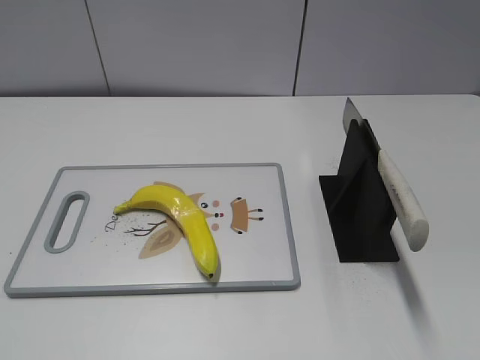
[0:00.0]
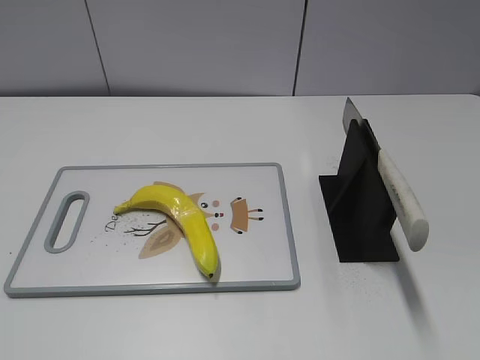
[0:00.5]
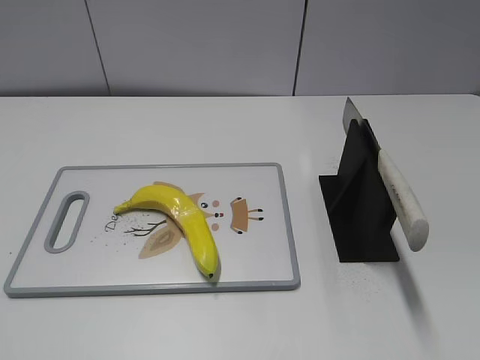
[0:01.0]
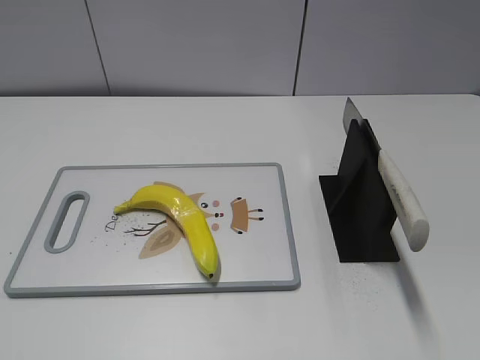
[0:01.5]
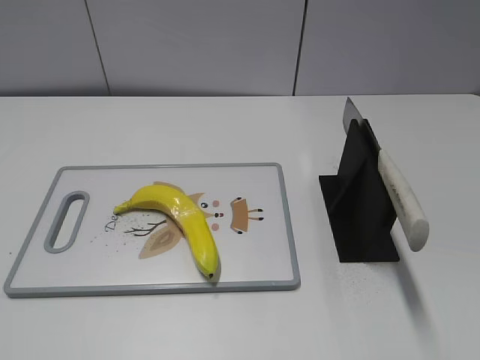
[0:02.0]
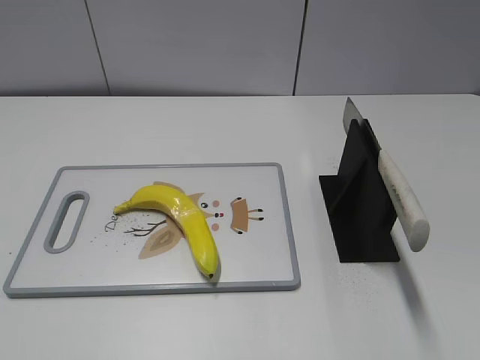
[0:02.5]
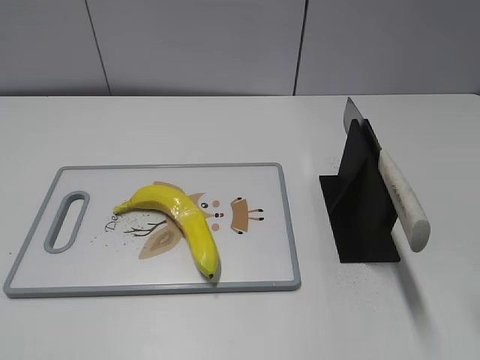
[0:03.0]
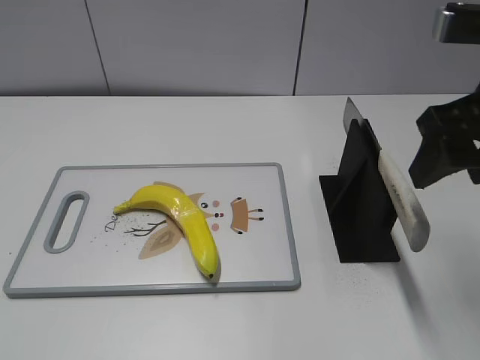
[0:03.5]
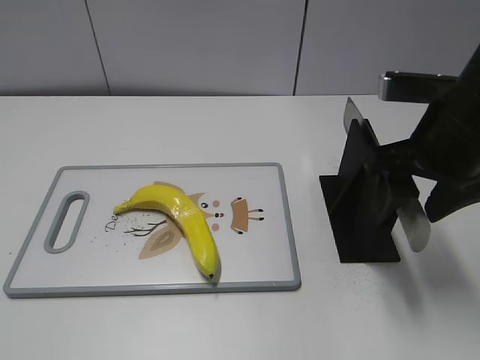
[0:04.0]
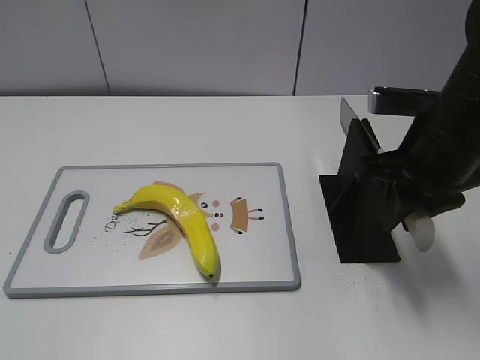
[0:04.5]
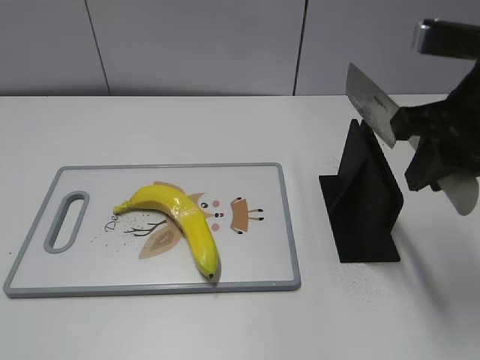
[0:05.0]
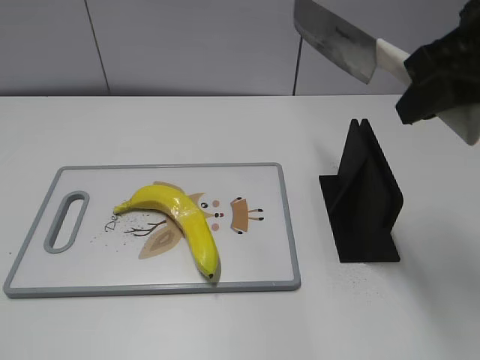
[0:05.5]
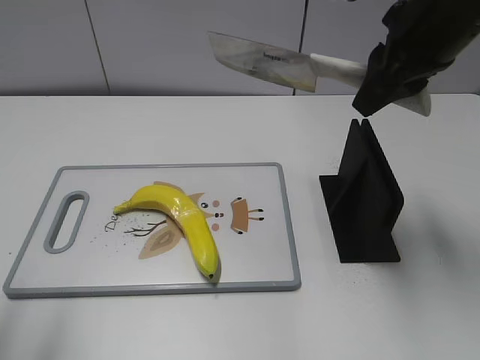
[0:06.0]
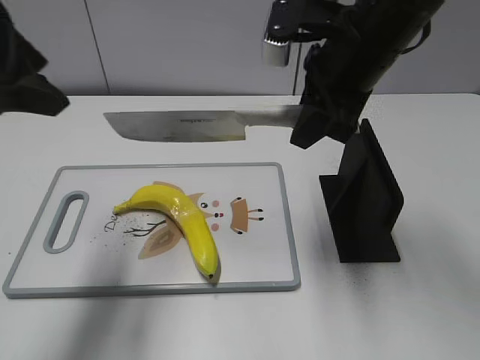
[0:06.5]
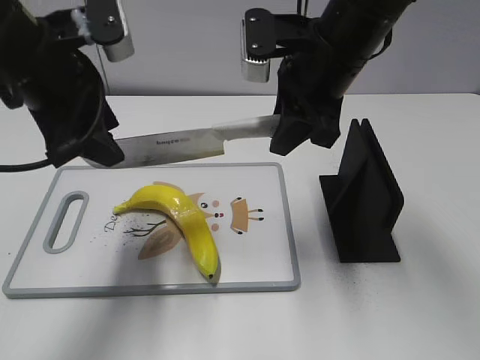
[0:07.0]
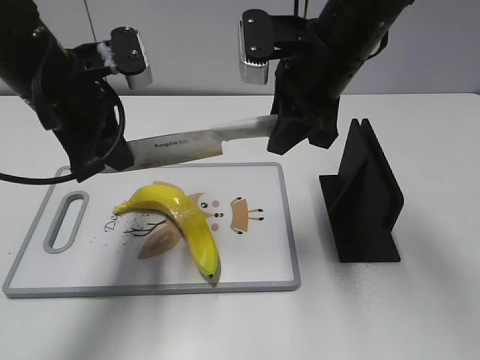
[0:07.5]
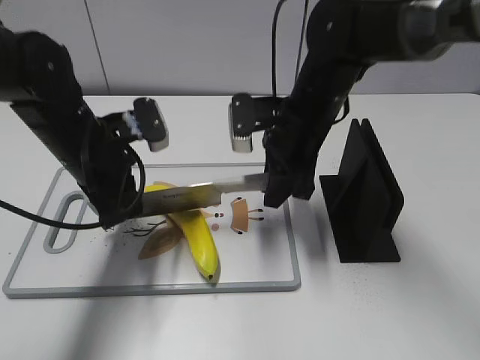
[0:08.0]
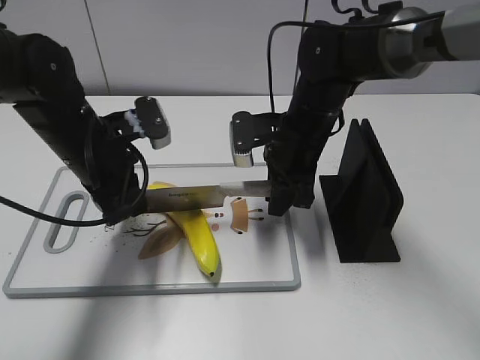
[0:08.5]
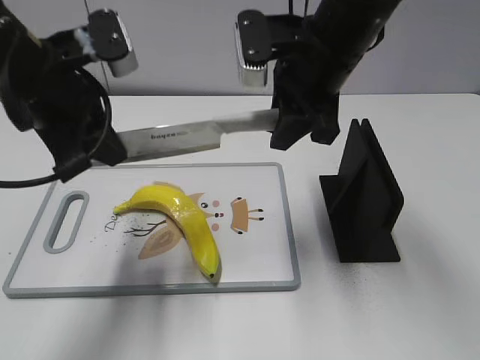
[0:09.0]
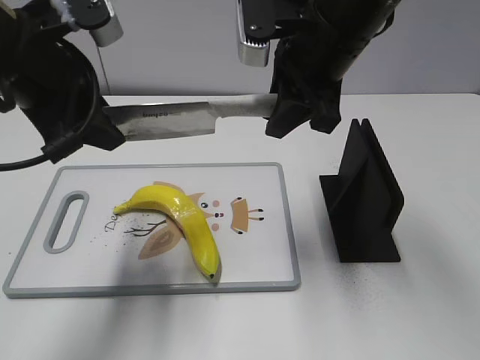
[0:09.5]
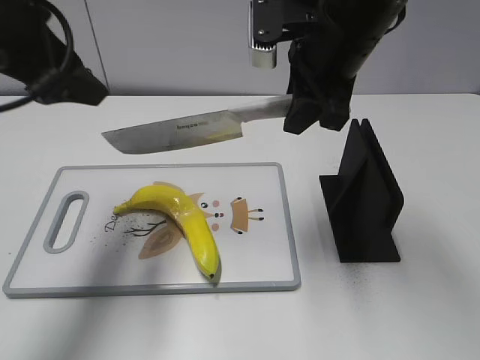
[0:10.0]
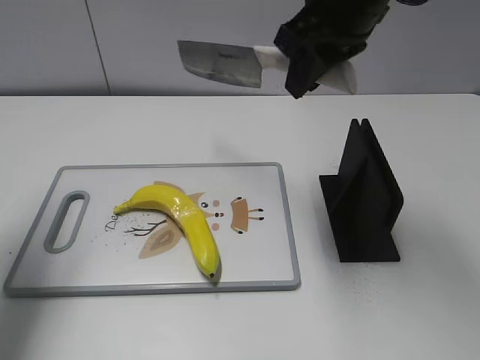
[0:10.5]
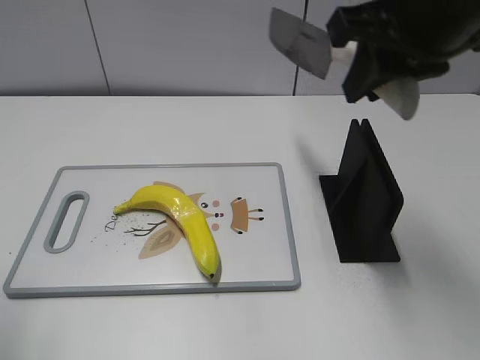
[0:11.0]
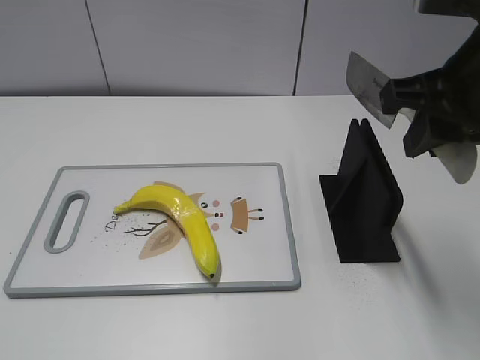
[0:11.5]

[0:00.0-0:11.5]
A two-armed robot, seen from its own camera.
Task of the whole recording: cut plastic banana.
Step, 0:00.0 to 0:05.0: Grab the knife handle with your right hand.
Step, 0:05.5 to 0:09.0: Lift the knife with your right hand.
Step, 0:09.5 to 0:10.0: Cut the banana with your right hand.
Step, 0:11.0 to 0:11.5: Secure the blade with your left hand.
0:02.0 to 0:04.0: The right gripper shifts roughly 25 cm forward and to the left.
0:04.0 to 0:06.0: The right gripper travels upward and forward by roughly 10 cm, and closes. The left gripper is displaced forward and upward by about 15 cm.
0:06.0 to 0:07.5: The left gripper shifts roughly 25 cm forward, to the right and downward, and closes. The right gripper goes roughly 10 cm to the left and downward.
0:07.5 to 0:09.5: The right gripper goes downward and returns, some 10 cm each way. The left gripper travels downward and back again, some 10 cm each way, and opens up.
0:09.5 to 0:11.5: The left gripper heads backward and to the left, covering approximately 30 cm, and opens, while the right gripper is displaced backward and to the right by approximately 15 cm.

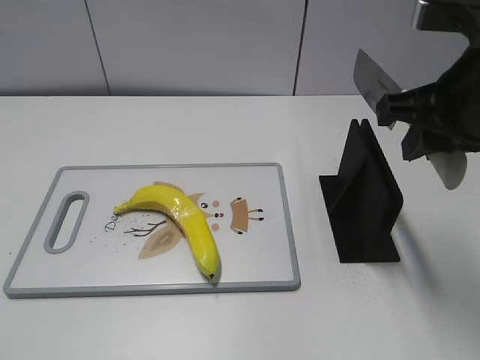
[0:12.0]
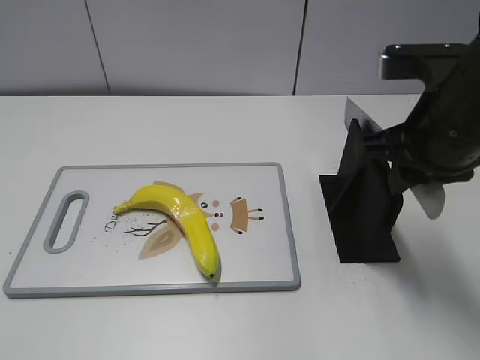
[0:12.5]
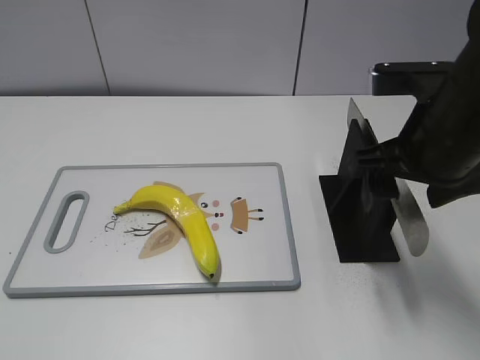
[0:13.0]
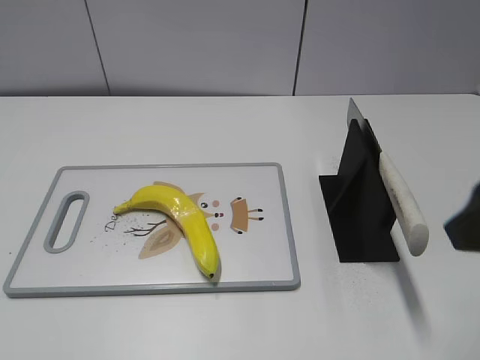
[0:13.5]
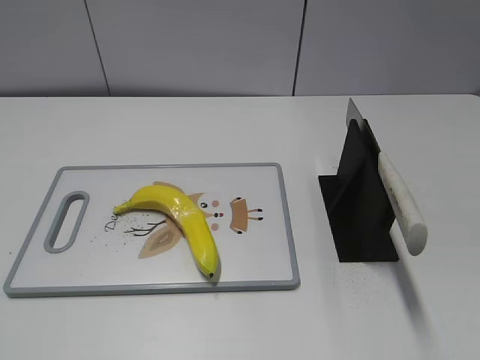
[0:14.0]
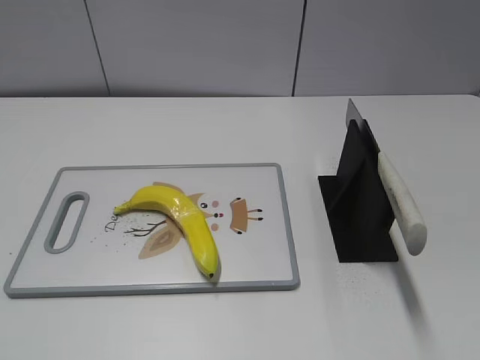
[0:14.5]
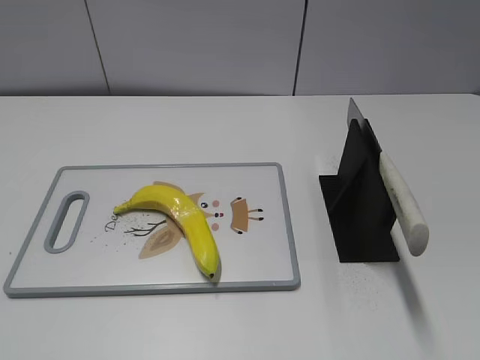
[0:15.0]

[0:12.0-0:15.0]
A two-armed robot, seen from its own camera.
Task of the whole recording: cut plastic banana.
Step, 0:12.0 to 0:15.0: Place the knife on the storage rack with your right hand.
0:12.0 to 0:13.5: The right gripper shifts some 10 cm backward, and opens.
0:13.5 to 0:15.0: The right gripper shifts approximately 20 cm backward and to the right.

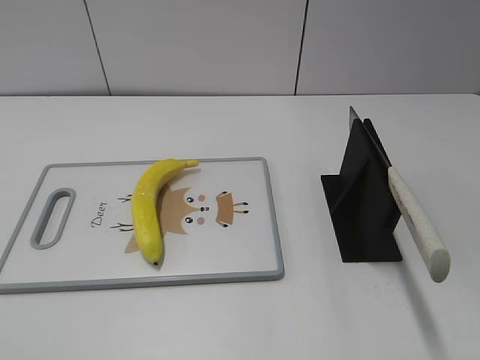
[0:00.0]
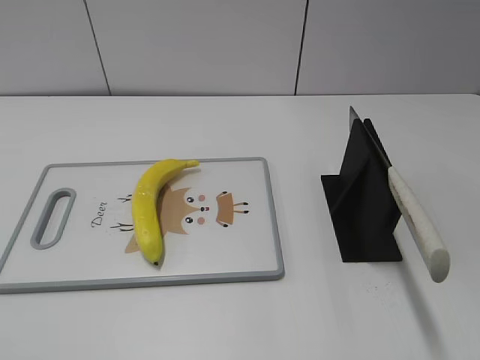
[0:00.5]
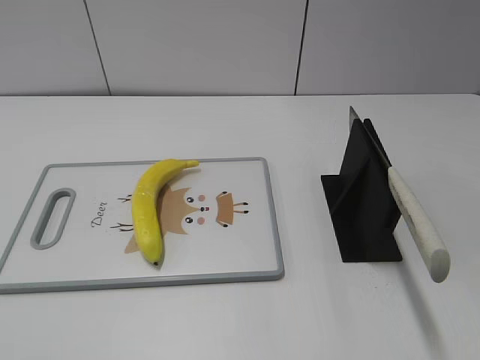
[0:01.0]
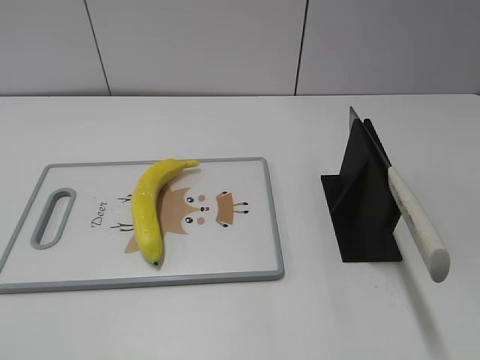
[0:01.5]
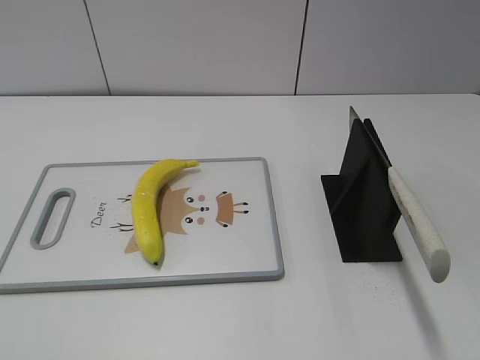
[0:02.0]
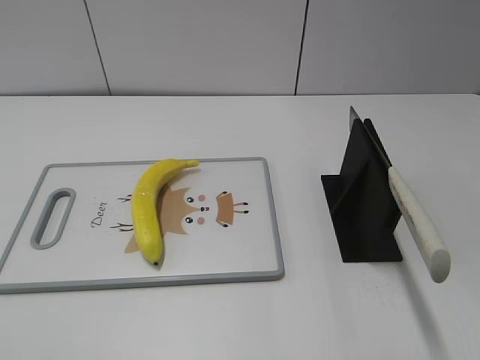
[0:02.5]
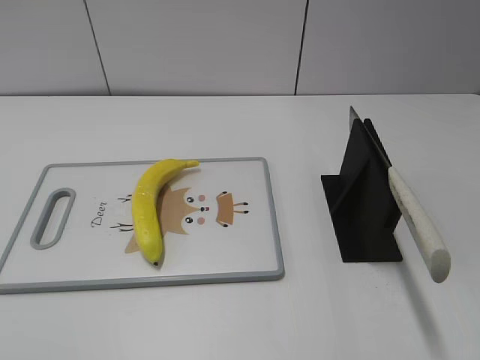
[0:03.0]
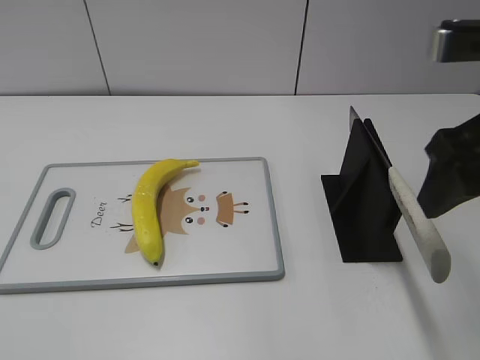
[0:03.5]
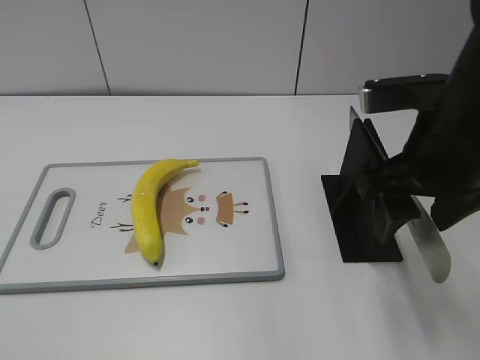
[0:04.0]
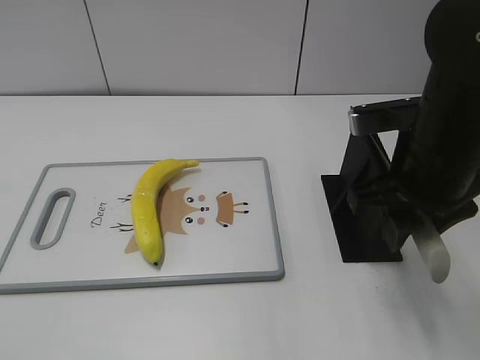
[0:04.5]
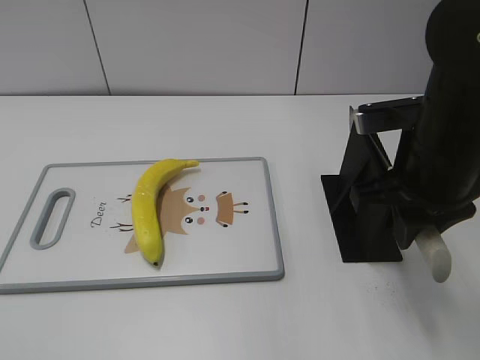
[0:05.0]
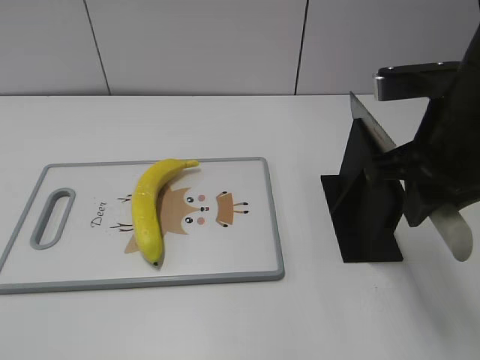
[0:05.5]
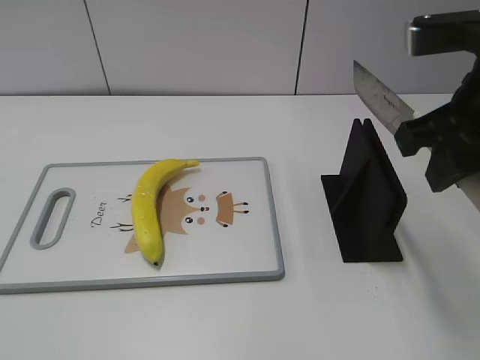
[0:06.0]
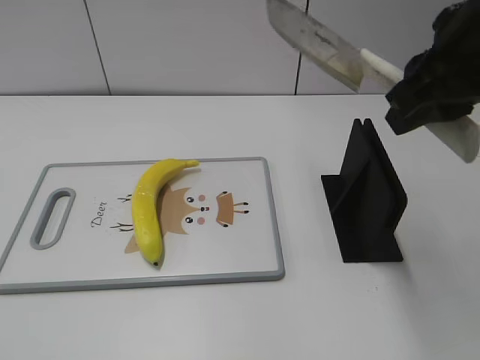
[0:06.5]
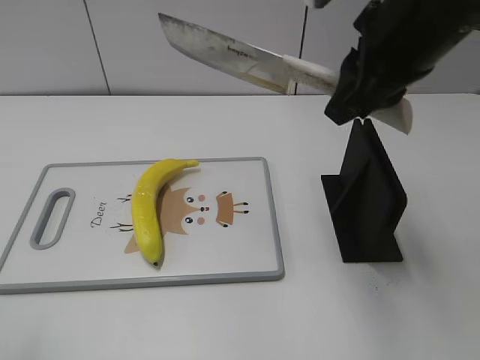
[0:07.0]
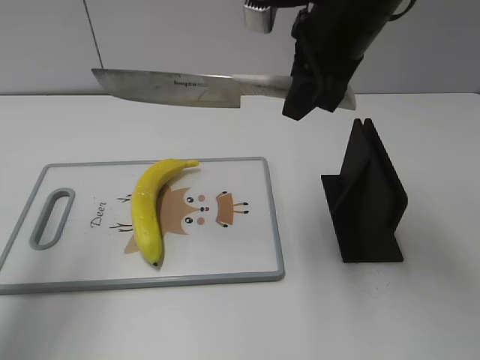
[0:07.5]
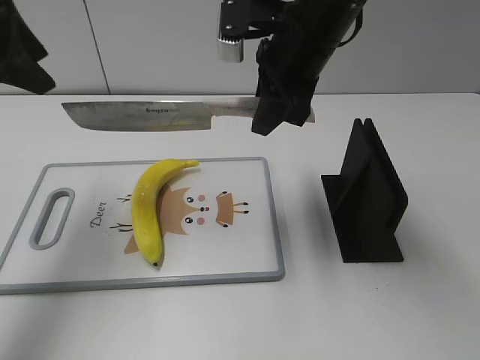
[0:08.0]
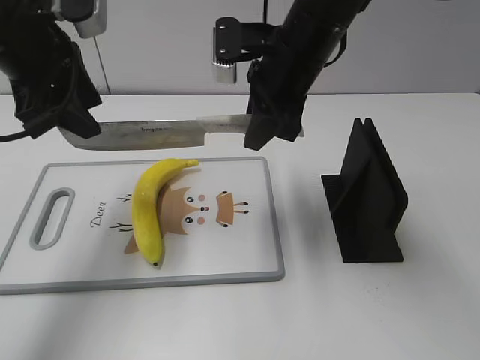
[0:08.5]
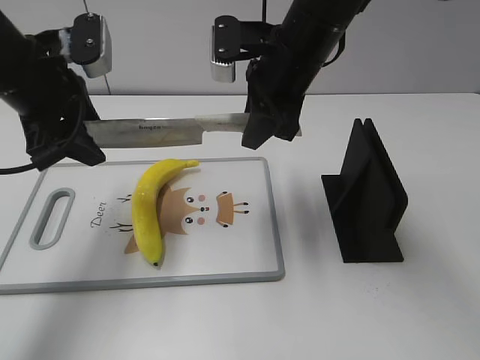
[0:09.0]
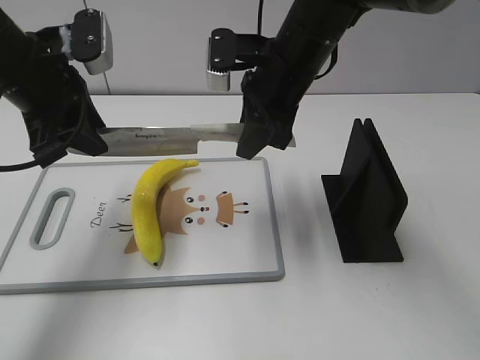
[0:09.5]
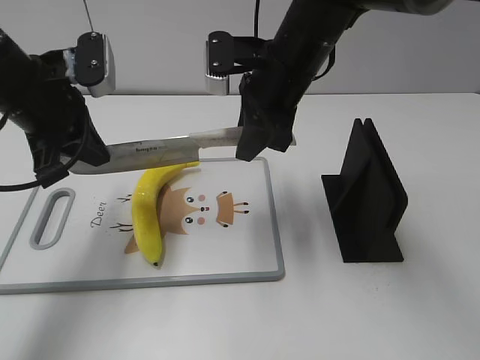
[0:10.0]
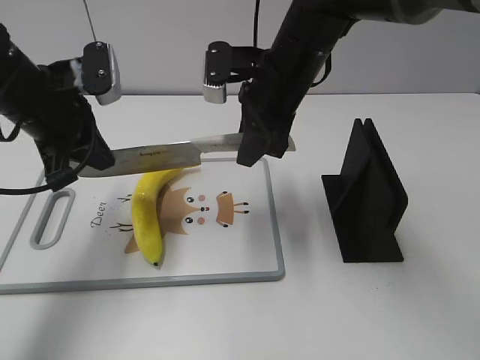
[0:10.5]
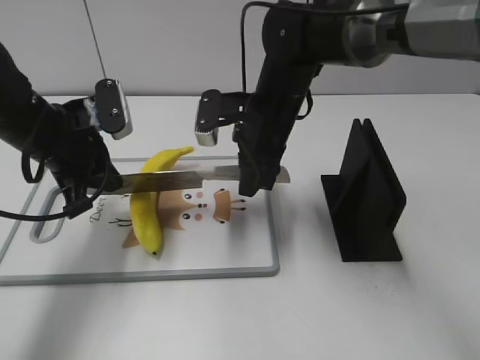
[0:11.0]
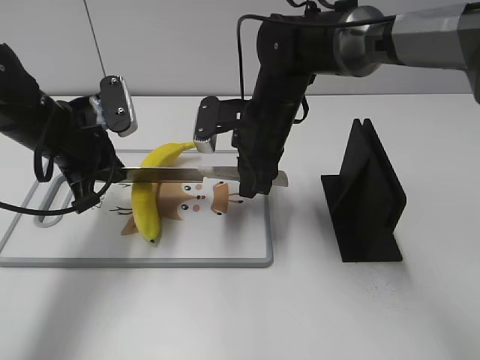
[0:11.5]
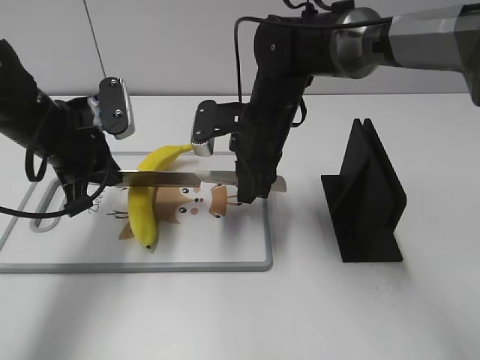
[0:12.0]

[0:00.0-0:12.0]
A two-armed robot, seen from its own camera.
Task of the whole recording: cut plastic banana.
Step, 0:00.0 to 0:05.5: Grab the knife handle with your right hand.
0:02.0 to 0:04.0: The right gripper shifts roughly 25 cm forward and to the left.
0:04.0 to 0:06.0: The right gripper goes some 5 cm upward, and closes.
0:06.0 to 0:08.0: The right gripper is displaced forward and to the left by about 20 cm. Meanwhile the left gripper heads forward, covering approximately 35 cm.
0:08.0 to 0:10.0: The left gripper travels downward by approximately 10 cm, and closes its fingers.
0:10.0 to 0:12.0: The grippers both shift downward by approximately 10 cm.
